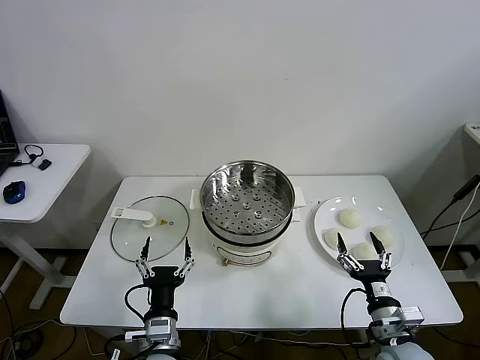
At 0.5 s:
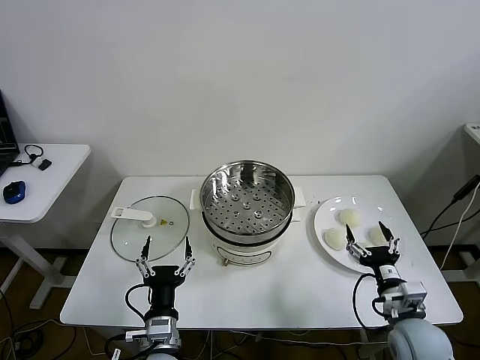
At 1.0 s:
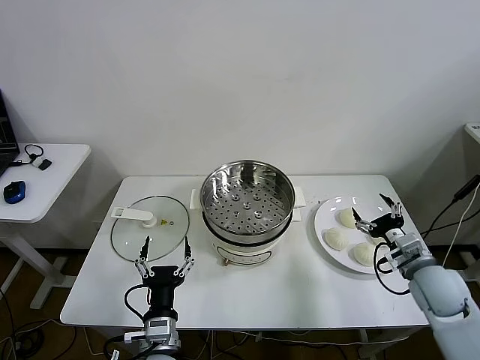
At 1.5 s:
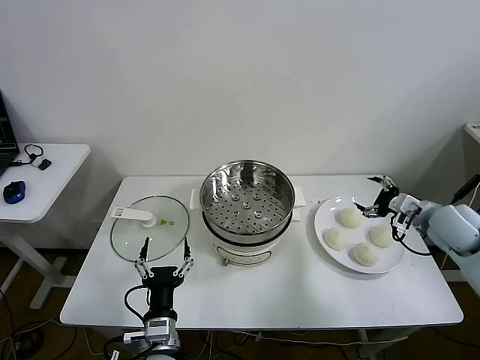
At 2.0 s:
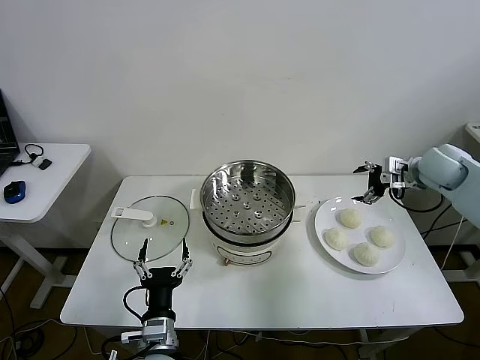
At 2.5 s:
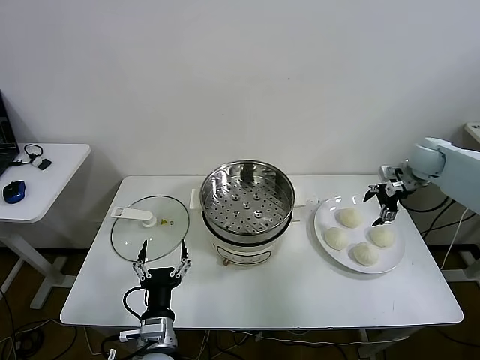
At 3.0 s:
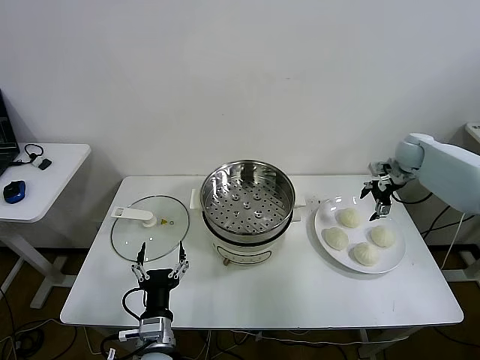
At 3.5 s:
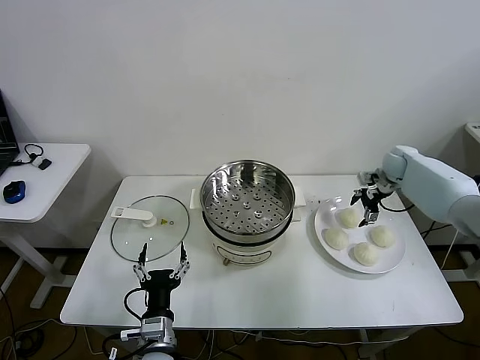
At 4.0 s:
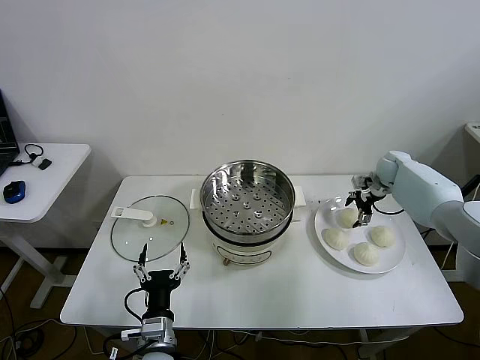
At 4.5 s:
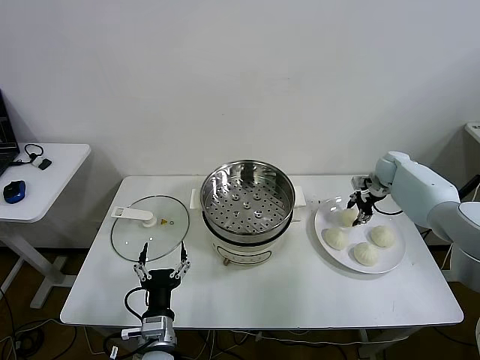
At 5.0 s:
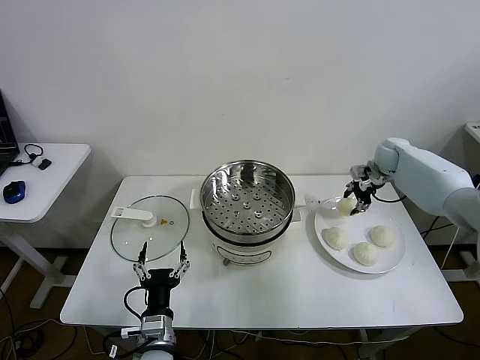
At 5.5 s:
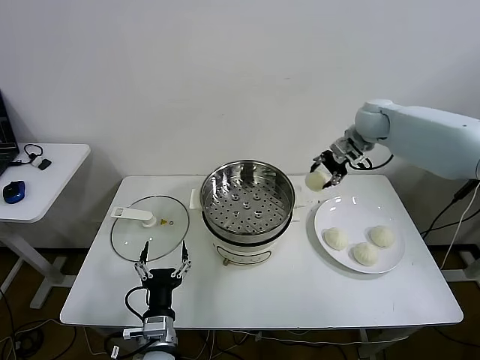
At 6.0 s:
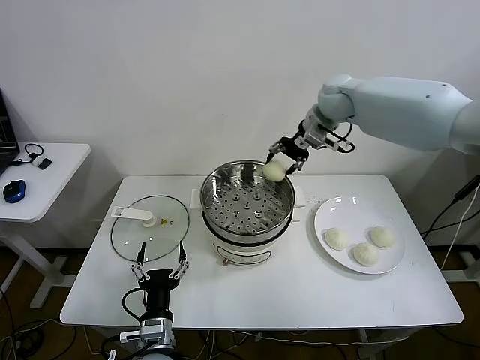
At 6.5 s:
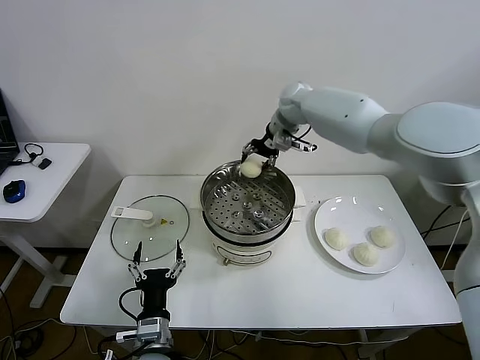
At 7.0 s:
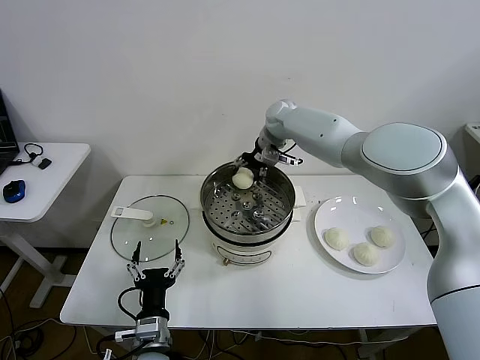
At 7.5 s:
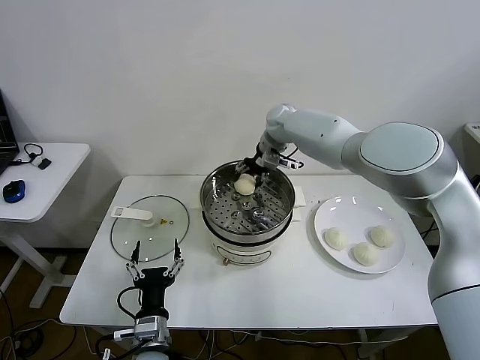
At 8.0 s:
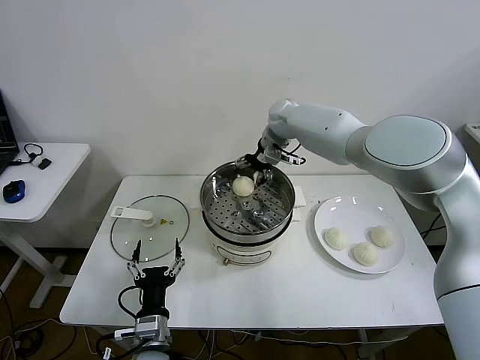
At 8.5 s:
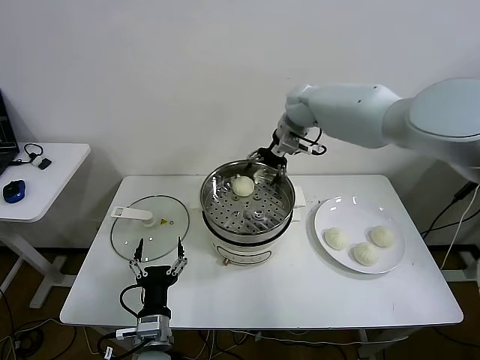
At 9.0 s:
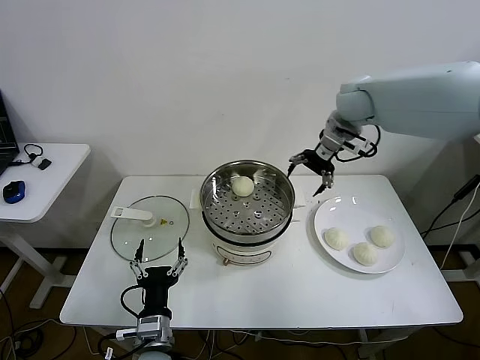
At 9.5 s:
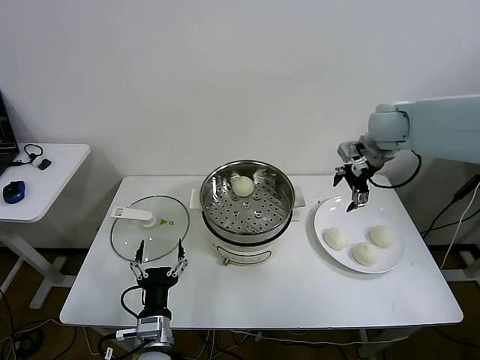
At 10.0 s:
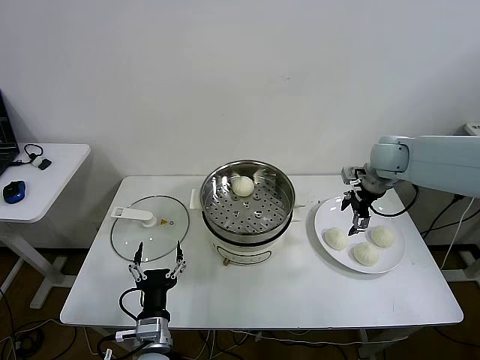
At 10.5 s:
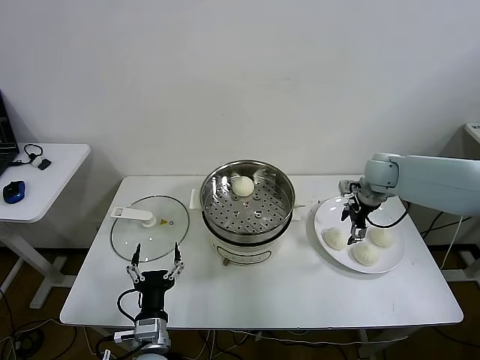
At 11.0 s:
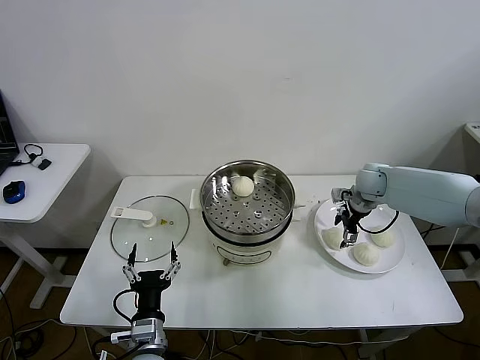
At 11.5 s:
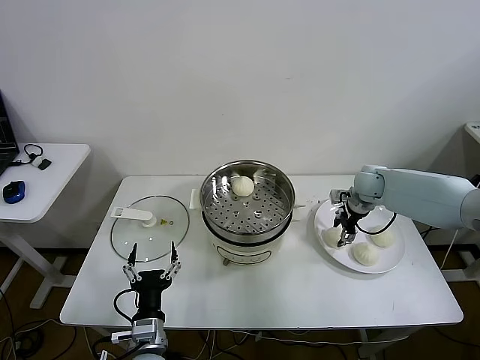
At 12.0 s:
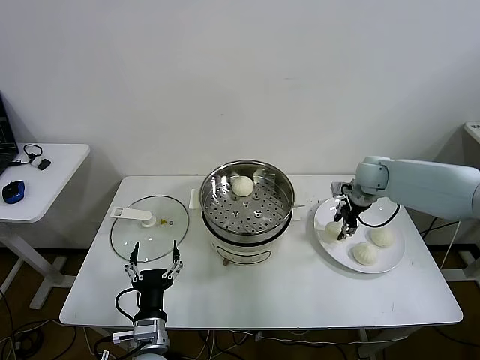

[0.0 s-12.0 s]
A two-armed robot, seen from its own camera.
Step, 0.0 to 4.0 s: Grasp the baozi in the plate with right gripper.
Step, 5.0 to 8.0 s: Place the baozi on the steamer with right gripper.
Step, 8.5 to 11.5 s: Grasp the baozi in the plate with right gripper.
2.0 to 4.0 s: The right gripper heads downward and forward, covering approximately 15 cm.
4.0 to 6.0 s: The right gripper goes some 30 cm to the left and upward, and closes up.
6.0 to 8.0 s: The right gripper moves to the left and downward, about 10 cm, and opens its fingers.
8.0 to 10.0 s: The right gripper shifts about 25 cm to the right and backward.
10.0 to 12.0 s: The right gripper moves downward, about 5 cm, and closes its fingers.

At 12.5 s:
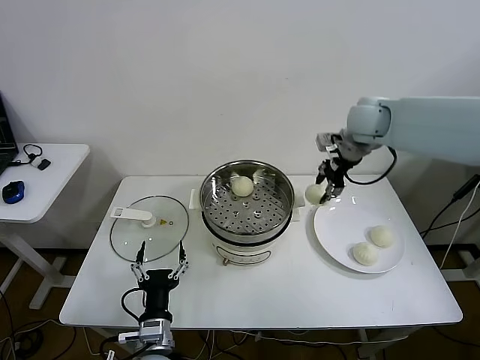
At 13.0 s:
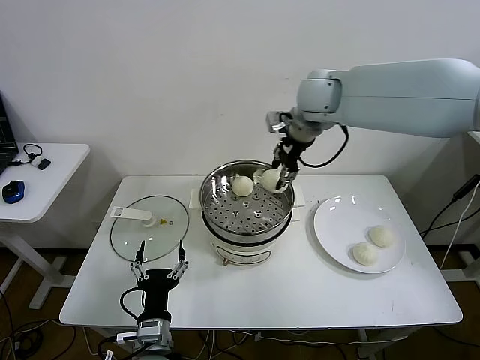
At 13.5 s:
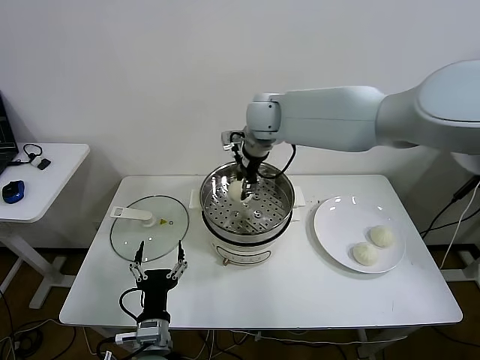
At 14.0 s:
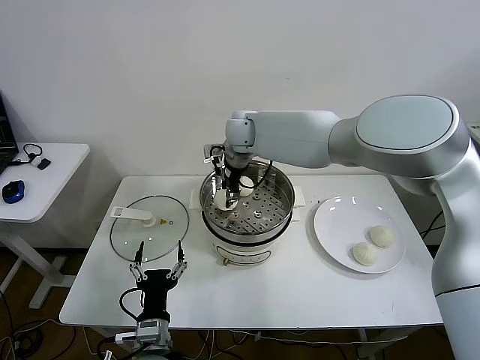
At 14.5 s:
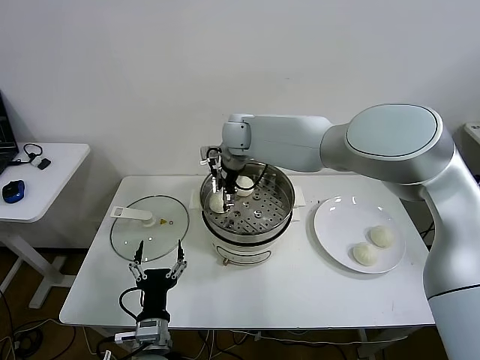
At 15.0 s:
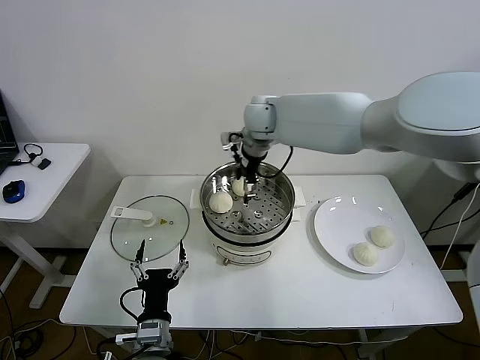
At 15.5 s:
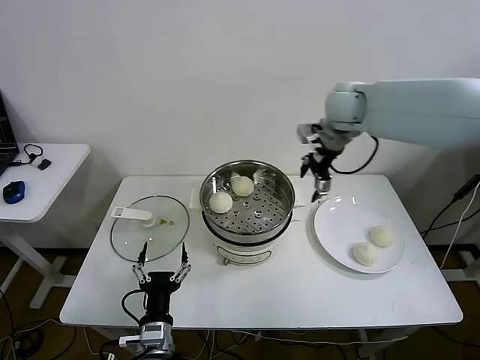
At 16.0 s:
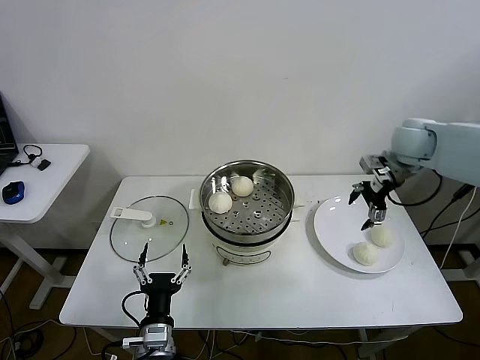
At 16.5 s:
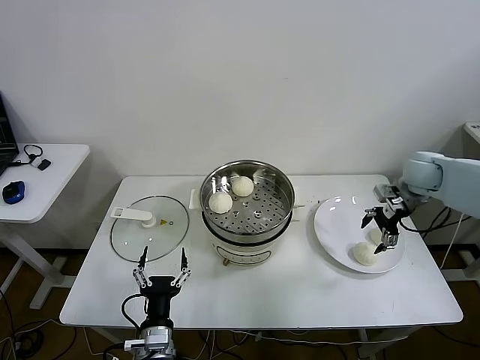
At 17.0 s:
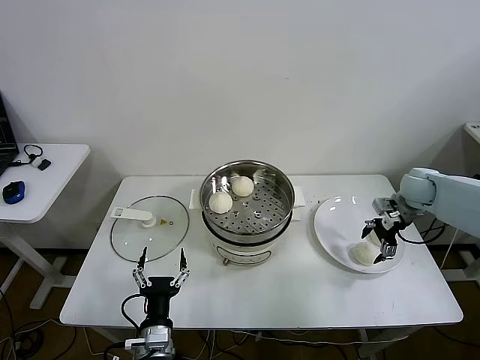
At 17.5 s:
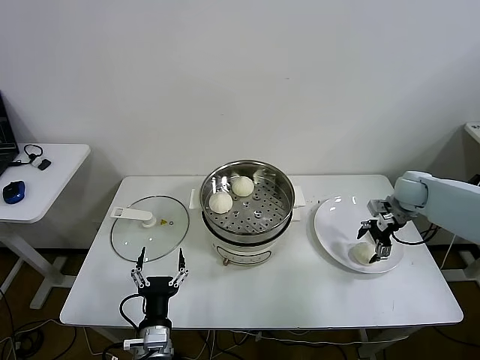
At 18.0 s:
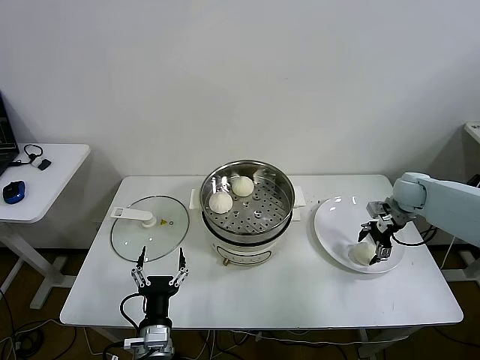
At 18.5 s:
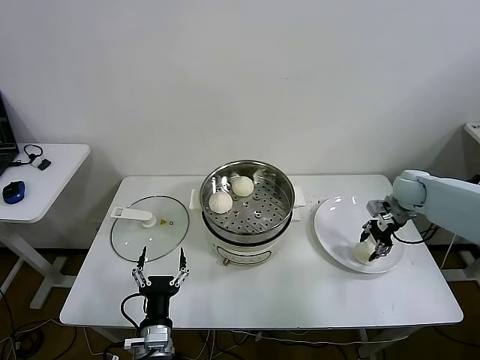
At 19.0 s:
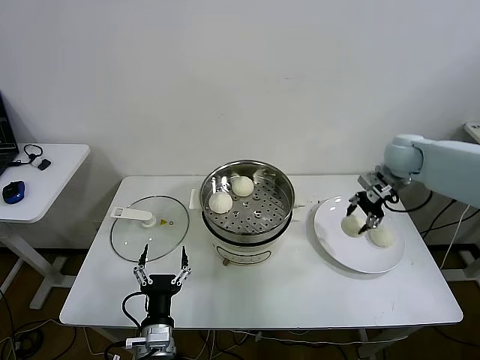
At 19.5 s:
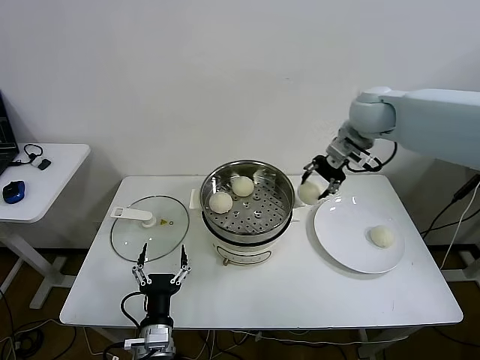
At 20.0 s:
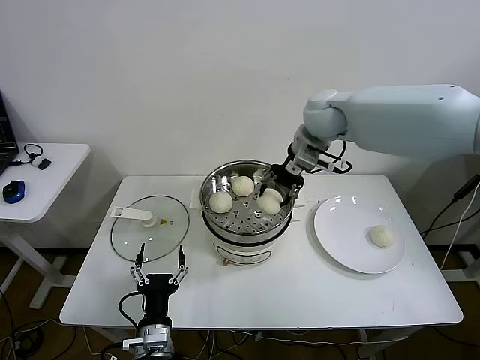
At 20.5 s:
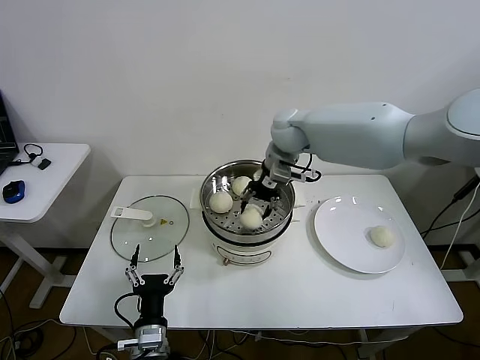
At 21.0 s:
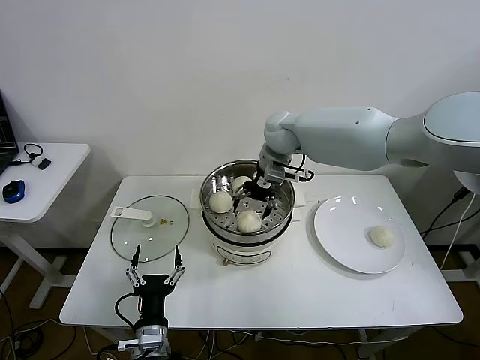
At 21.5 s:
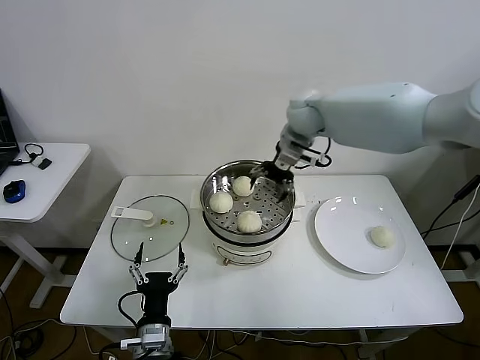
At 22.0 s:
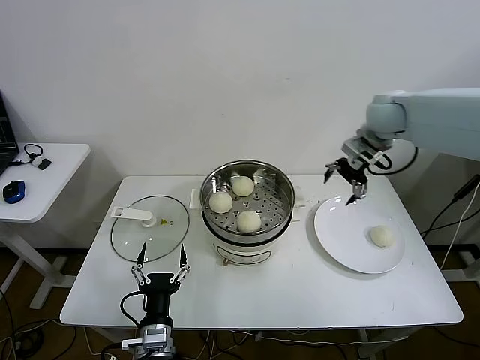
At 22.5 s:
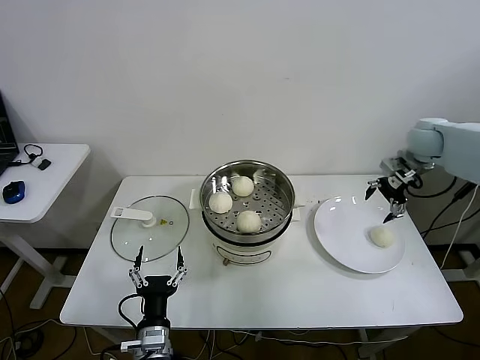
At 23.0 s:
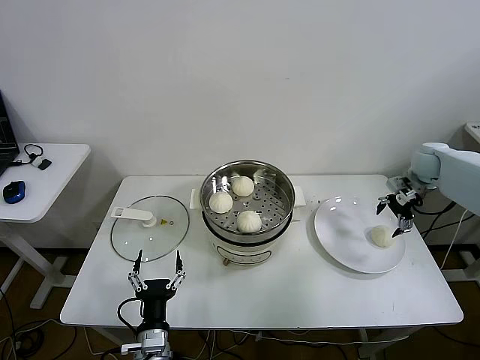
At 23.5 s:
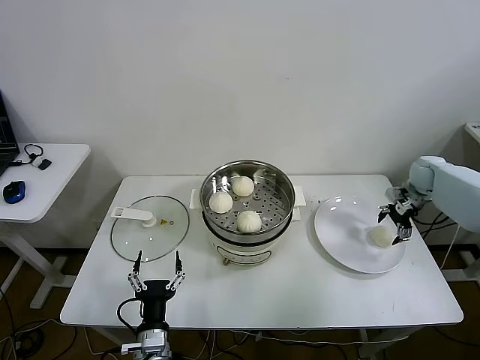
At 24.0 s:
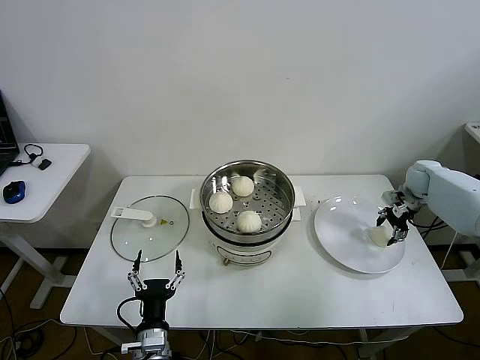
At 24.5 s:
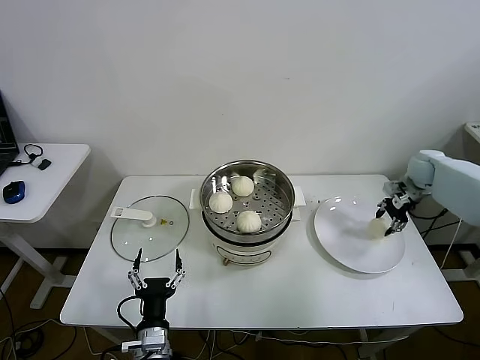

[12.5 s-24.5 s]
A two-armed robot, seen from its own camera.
Step, 12.5 to 14.5 s: Place the baozi on the steamer with right gripper.
Step, 15.0 to 18.0 s: Grasp the baozi in the plate with right gripper.
Step, 18.5 to 21.0 s: Place the baozi on the steamer with right gripper.
Step, 21.5 to 24.0 s: Grasp the baozi in the plate with right gripper.
12.5 to 14.5 s: The right gripper shifts some 25 cm to the left, and opens up.
14.5 to 16.5 s: The right gripper heads to the right, covering some 40 cm.
16.5 to 18.5 s: The right gripper shifts some 5 cm downward, and closes its fingers.
18.5 to 20.5 s: The right gripper goes approximately 35 cm to the left and upward.
20.5 to 22.5 s: The right gripper is displaced to the right by roughly 30 cm, and opens.
22.5 to 24.5 s: The right gripper travels downward and to the right by some 15 cm, and closes its fingers.

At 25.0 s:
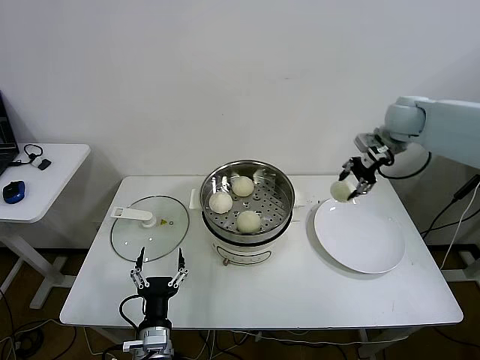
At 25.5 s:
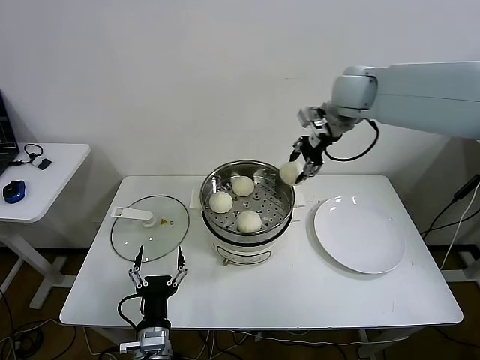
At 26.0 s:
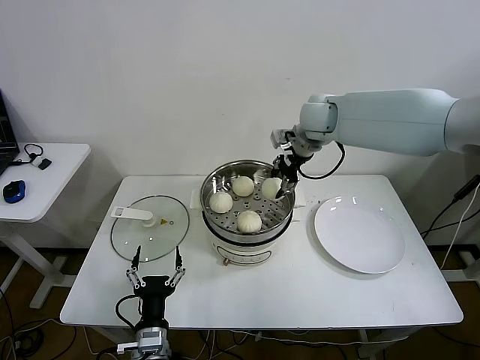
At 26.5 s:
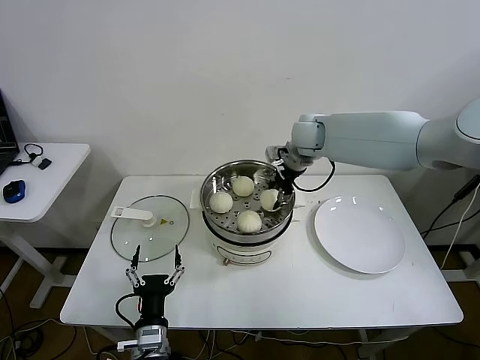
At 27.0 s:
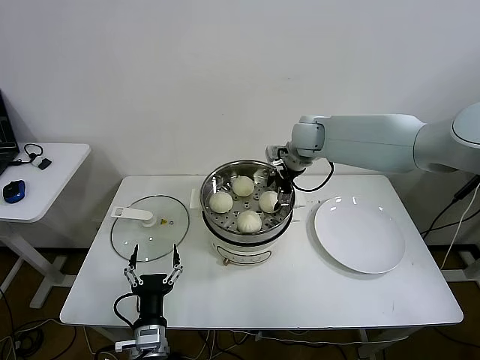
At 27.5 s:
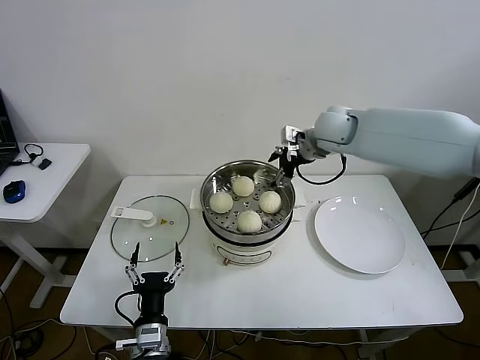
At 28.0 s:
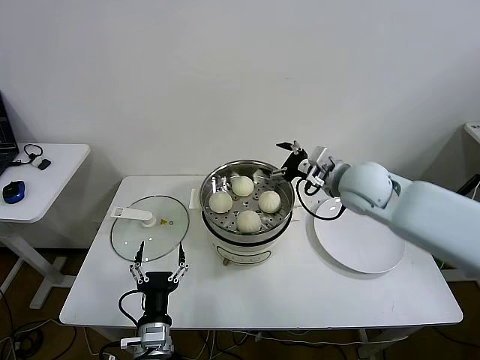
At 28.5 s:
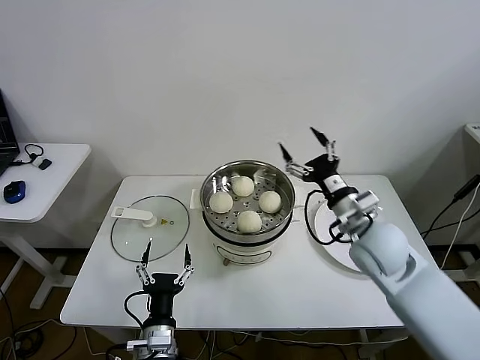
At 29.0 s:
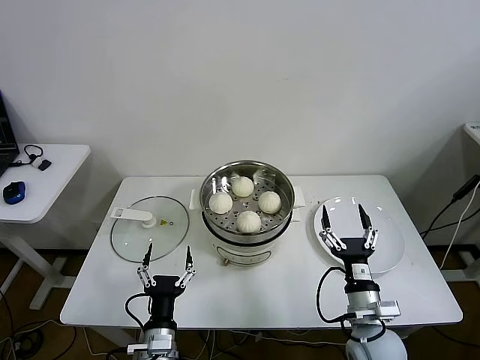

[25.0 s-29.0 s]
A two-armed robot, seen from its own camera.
Step, 25.0 to 27.5 s: Place the baozi on the steamer with right gripper.
25.0 to 27.0 s: The right gripper travels to the left by roughly 20 cm, and opens.
27.0 to 29.0 s: The right gripper goes approximately 40 cm backward and downward.
